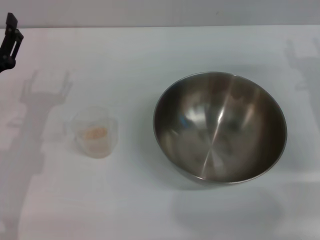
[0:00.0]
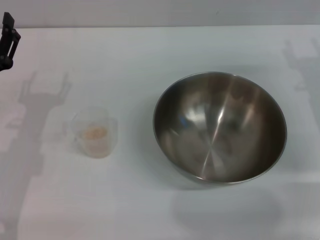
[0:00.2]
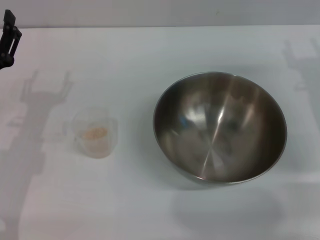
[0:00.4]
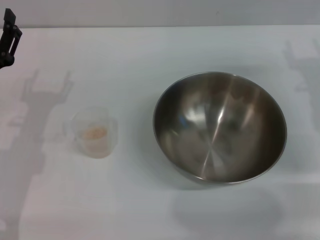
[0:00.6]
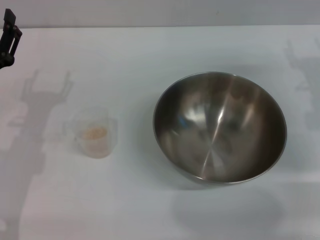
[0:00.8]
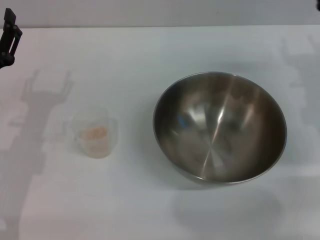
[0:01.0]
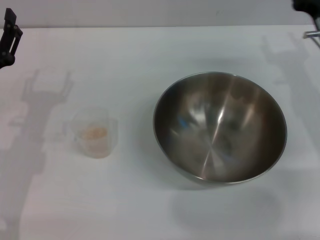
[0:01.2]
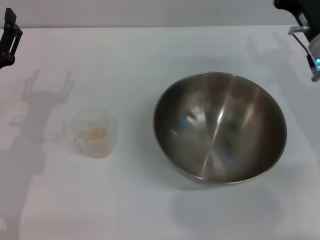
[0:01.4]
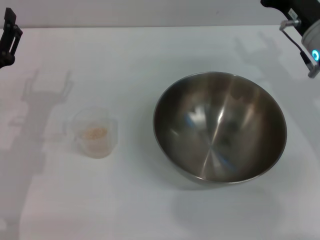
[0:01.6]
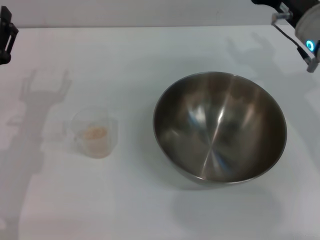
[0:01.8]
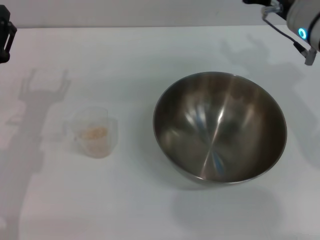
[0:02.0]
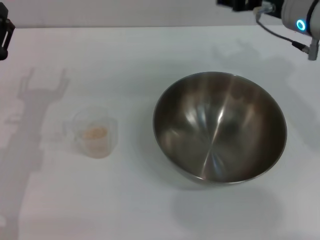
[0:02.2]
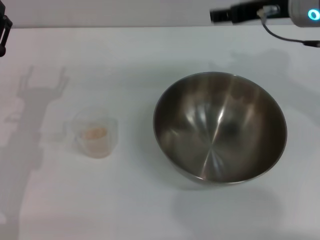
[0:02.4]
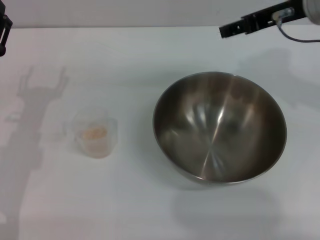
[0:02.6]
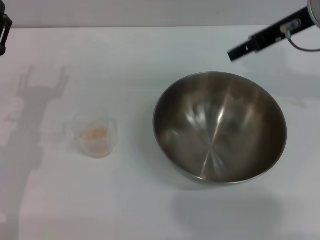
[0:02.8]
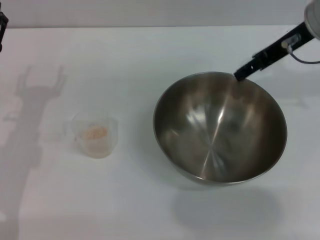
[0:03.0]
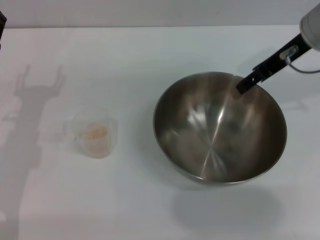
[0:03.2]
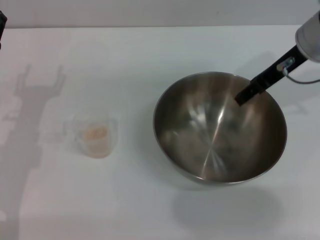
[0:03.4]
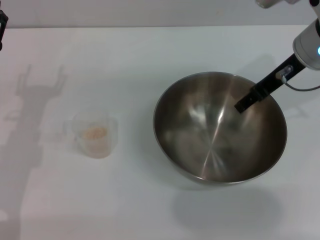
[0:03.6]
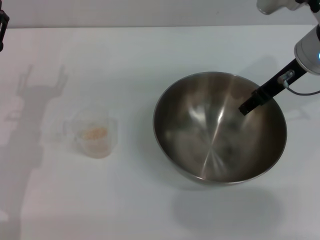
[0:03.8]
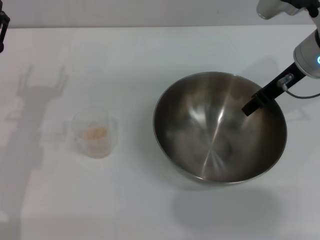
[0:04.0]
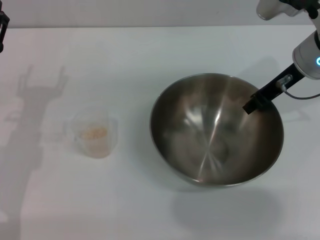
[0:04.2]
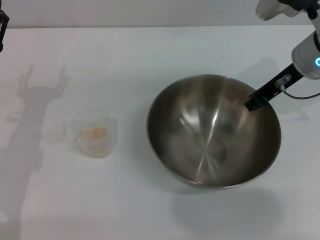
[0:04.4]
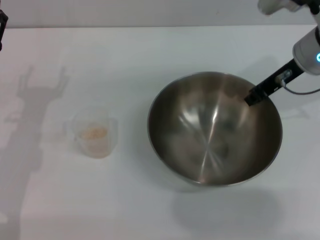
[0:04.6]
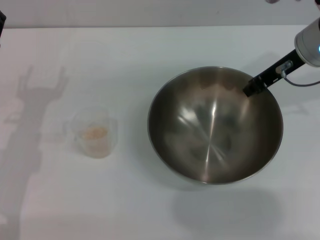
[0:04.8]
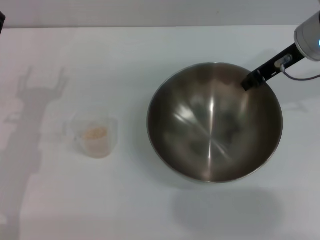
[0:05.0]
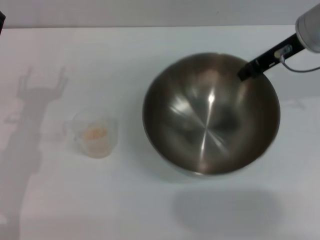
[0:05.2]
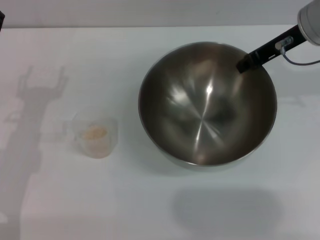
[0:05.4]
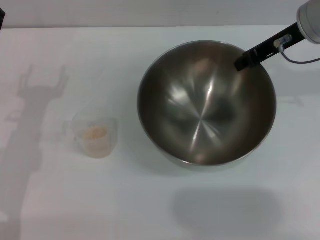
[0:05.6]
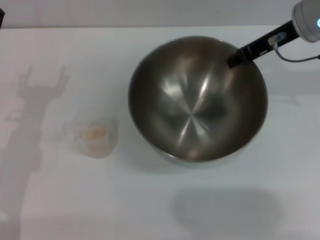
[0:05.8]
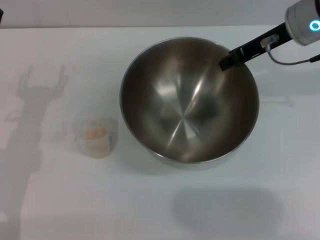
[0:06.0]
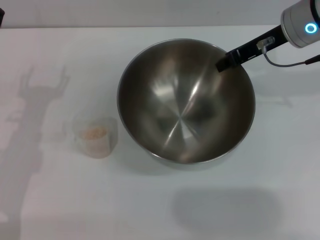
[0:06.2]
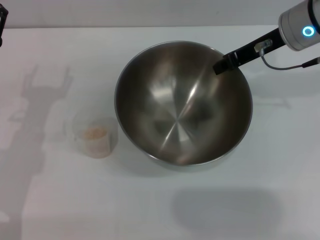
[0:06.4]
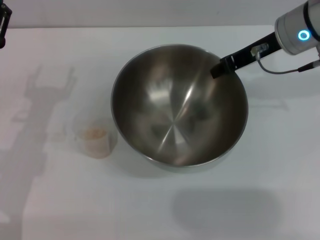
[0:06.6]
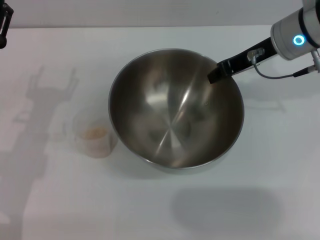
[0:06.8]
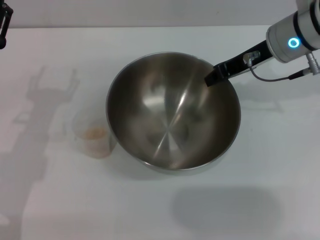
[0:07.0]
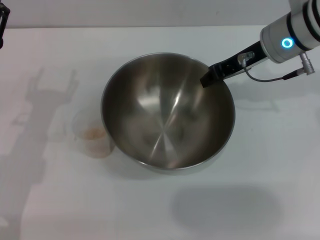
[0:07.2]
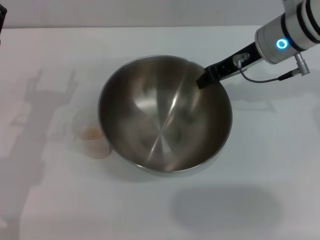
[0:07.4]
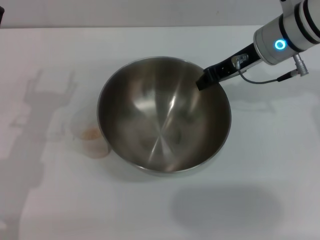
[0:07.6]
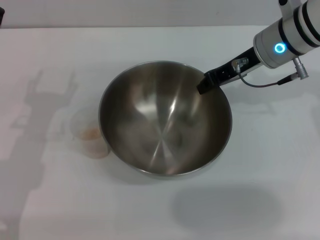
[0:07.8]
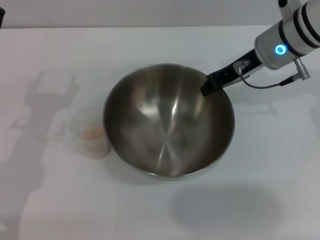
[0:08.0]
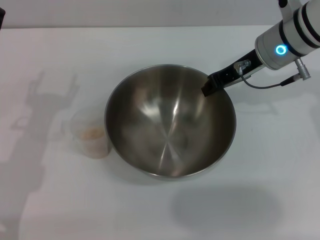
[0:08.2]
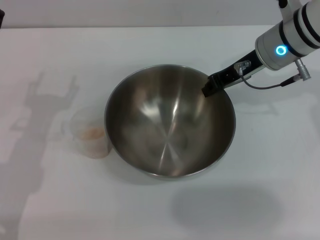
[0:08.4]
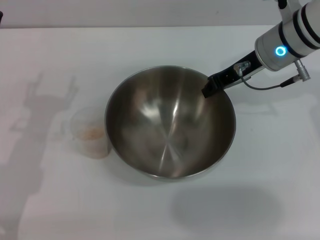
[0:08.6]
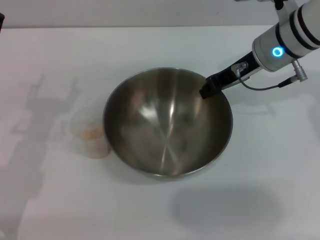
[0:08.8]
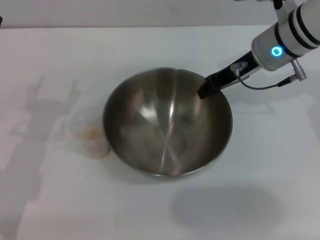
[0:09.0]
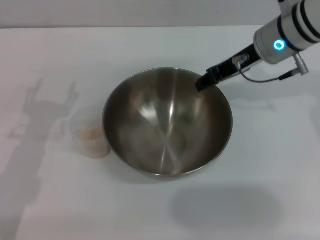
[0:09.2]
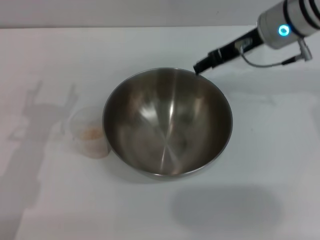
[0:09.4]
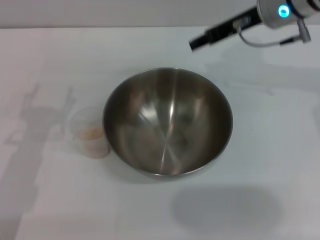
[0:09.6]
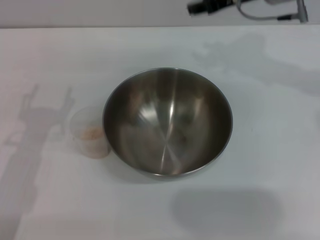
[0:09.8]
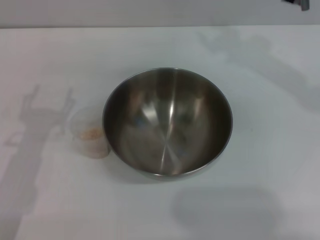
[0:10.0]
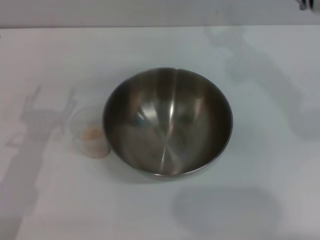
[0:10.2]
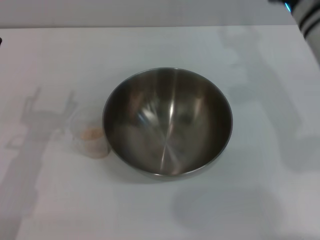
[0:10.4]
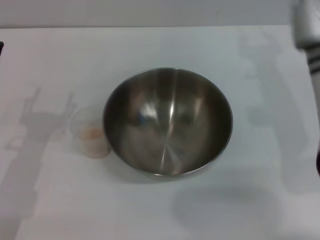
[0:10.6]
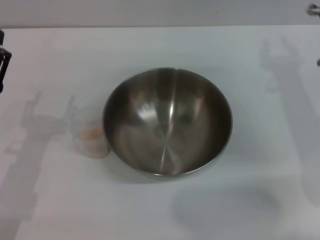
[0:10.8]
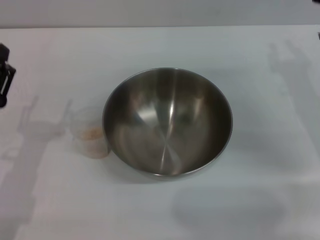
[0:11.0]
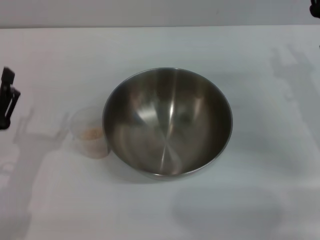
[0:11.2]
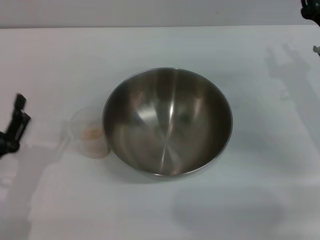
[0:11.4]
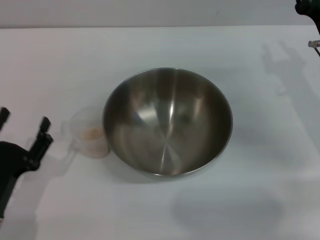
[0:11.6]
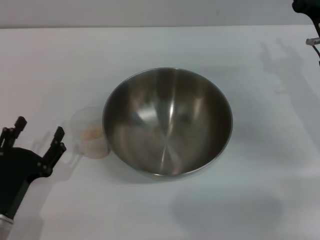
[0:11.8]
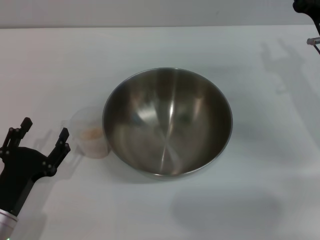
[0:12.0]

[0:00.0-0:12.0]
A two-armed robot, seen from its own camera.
Task of the whole recording: Place the bowl in the middle of the table with one hand and pour the rice from the grain cup into it with the other hand.
Step, 0:00.0 to 0:04.8: Pick up the bowl with the right gripper.
Step, 0:05.2 to 0:09.4: Place the bowl in the center of view with the right gripper.
0:00.0 to 0:01.6: The right gripper travels to the left by some 5 cm.
0:01.6 to 0:03.0: The right gripper goes approximately 10 cm upward.
0:03.0 to 0:04.4: The right gripper heads downward, covering some 5 cm, and closes.
0:04.4 to 0:06.0: The right gripper closes.
0:07.6 to 0:09.0: The grippers make only small movements.
0:09.0 to 0:10.4: The right gripper ends up some 5 cm from where it was, and opens its fingers.
0:10.4 to 0:12.0: The right gripper travels downward and to the right by approximately 15 cm; the left gripper goes about 10 cm downward and backward.

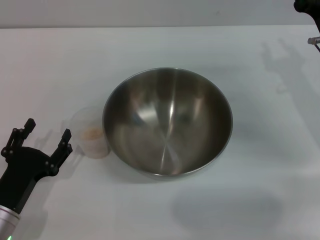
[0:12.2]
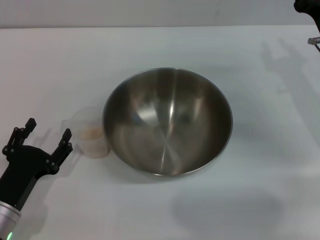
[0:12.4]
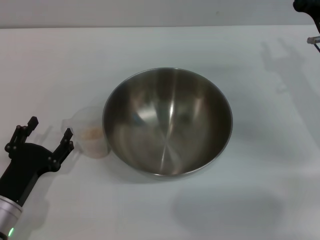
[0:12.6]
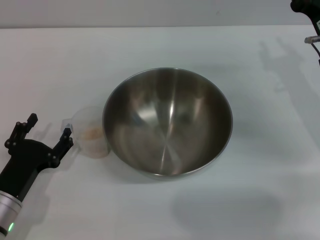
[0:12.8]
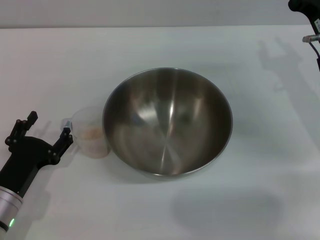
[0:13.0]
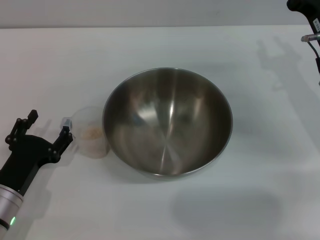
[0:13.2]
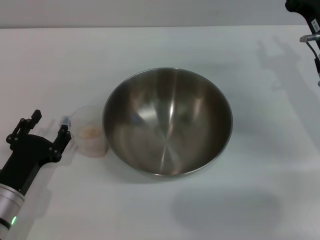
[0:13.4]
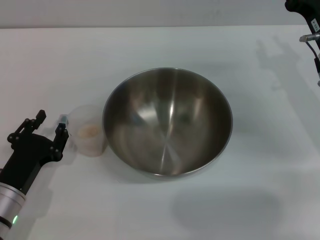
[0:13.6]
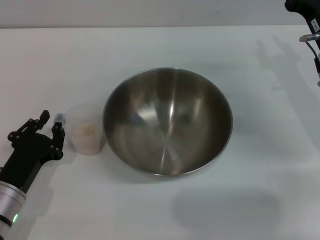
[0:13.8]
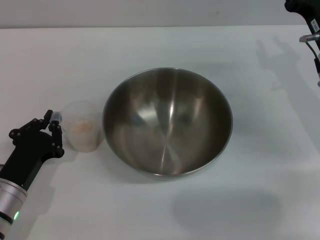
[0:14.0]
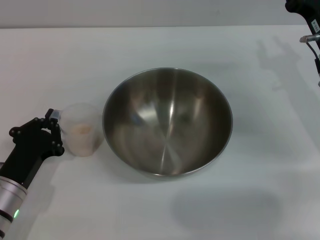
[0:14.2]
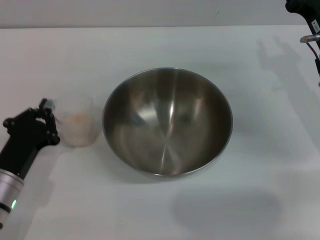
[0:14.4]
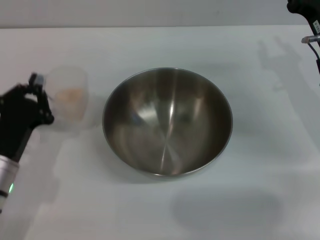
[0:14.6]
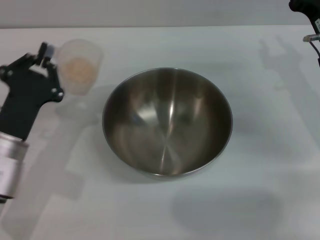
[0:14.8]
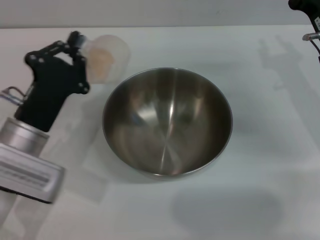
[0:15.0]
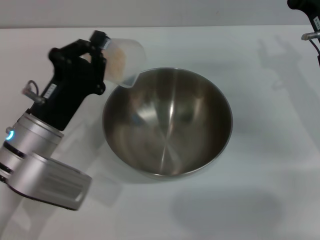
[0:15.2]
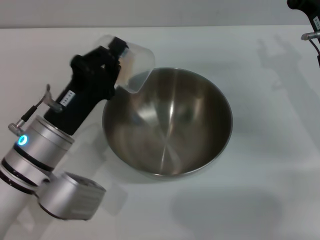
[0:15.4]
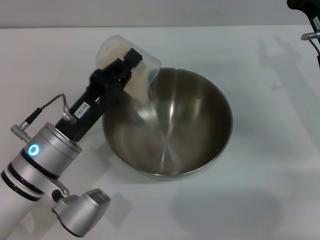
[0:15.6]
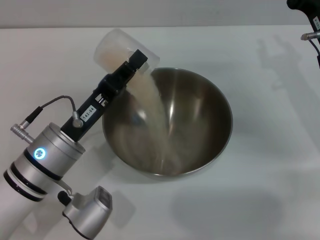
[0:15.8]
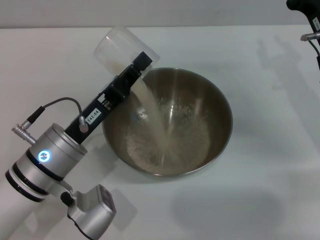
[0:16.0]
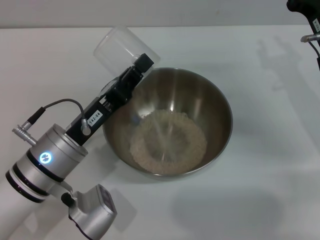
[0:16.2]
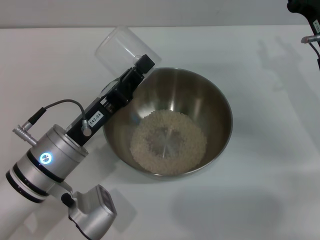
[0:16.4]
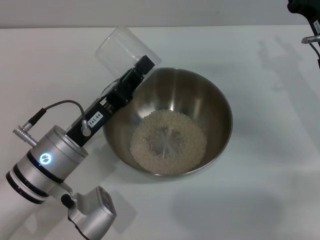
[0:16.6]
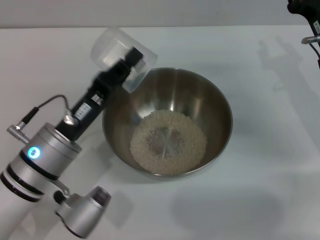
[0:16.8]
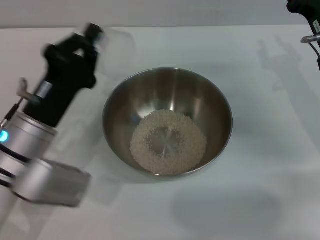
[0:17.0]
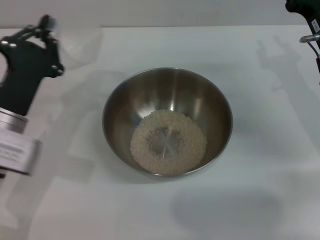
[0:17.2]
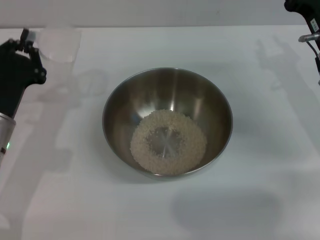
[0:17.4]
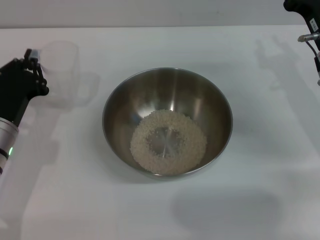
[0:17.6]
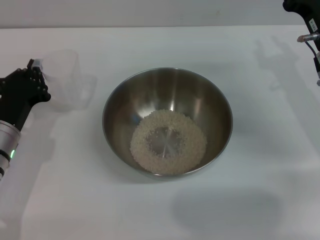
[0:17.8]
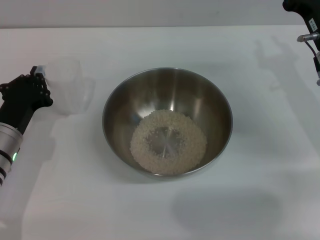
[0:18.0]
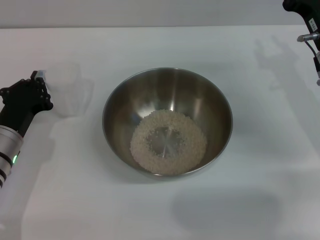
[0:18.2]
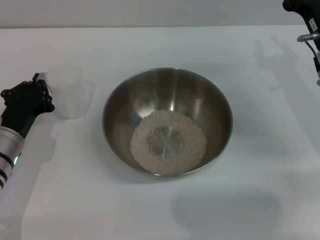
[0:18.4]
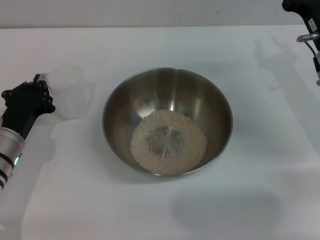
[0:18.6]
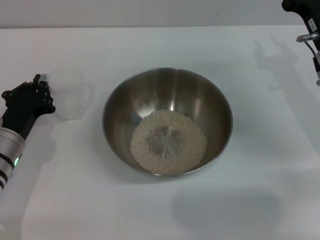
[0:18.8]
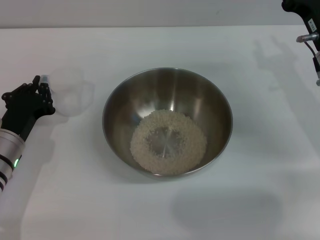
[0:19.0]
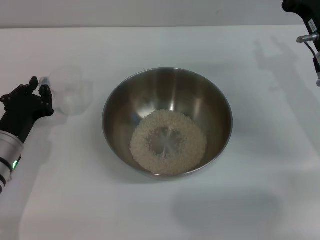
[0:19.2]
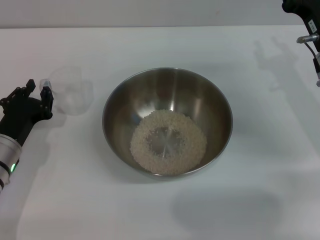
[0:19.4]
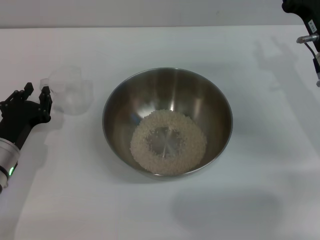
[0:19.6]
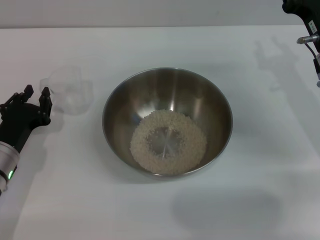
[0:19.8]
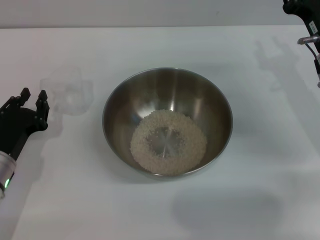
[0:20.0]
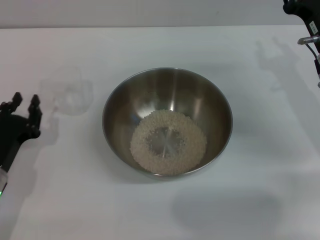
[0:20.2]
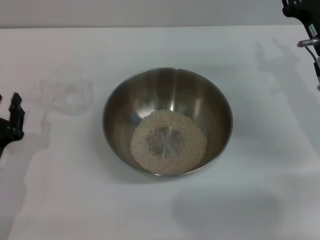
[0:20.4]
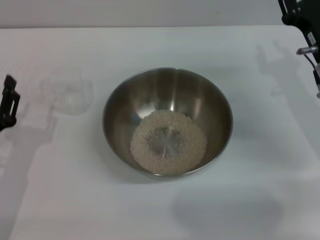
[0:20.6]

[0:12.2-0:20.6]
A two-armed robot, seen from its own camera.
Task of the whole recording: Place the bowl in the middle of the table with one hand and pour the rice from the grain cup into it with the other hand.
Step, 0:12.2 to 0:14.4: Pick up the cup with rice in it with the left gripper.
Step, 0:14.6 to 0:16.8: Pour the rice from the cup into the bowl with the left gripper.
Step, 0:17.0 to 0:19.8: Place the cup on the table with the left gripper.
0:12.2 to 0:13.6: There are only small adjustments of the grippers.
0:13.6 to 0:15.0: The left gripper heads upward and forward, covering some 10 cm, and closes up.
0:16.4 to 0:17.8: The left gripper is displaced to the left by approximately 10 cm.
0:17.8 to 0:19.2: The grippers stay close to where they were, moving slightly.
0:19.2 to 0:20.6: The left gripper goes about 5 cm backward.

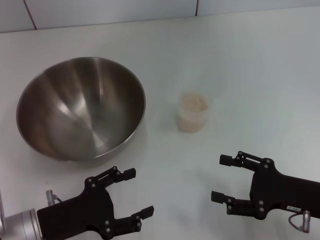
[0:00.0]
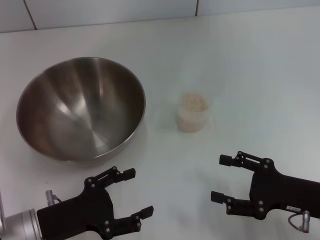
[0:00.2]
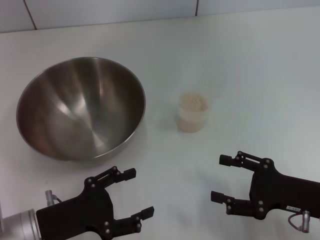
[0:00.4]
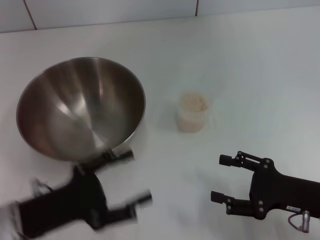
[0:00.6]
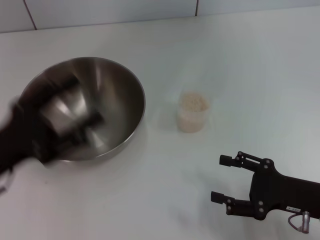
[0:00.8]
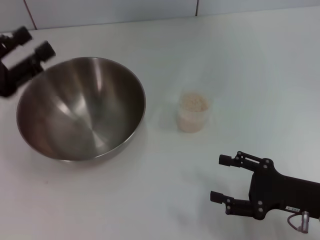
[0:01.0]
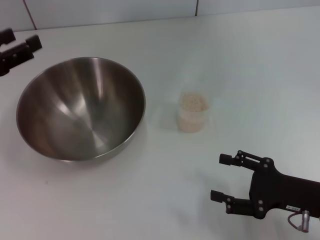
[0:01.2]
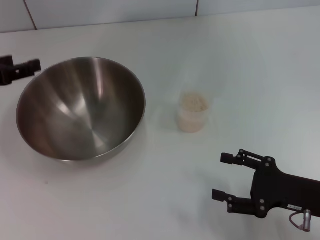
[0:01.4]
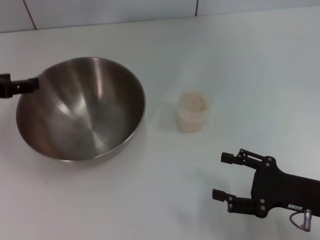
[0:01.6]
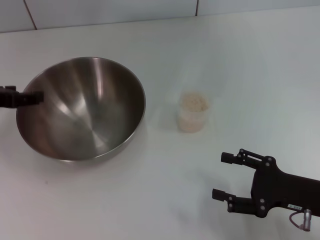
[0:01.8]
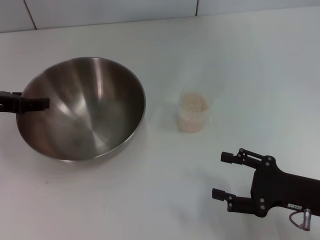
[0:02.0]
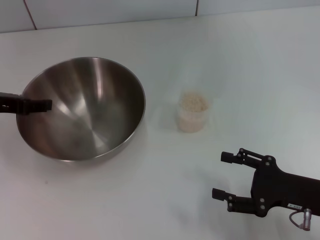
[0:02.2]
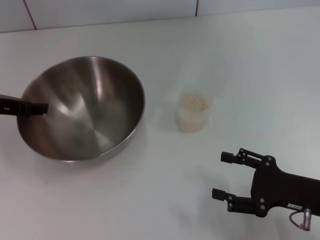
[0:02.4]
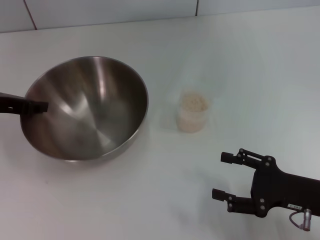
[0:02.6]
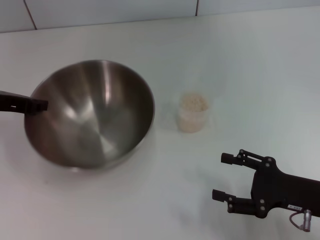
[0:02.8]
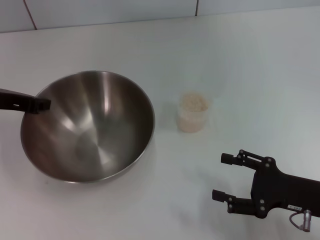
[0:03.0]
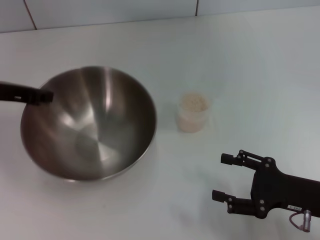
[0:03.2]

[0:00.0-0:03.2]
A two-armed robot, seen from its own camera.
Task of the whole recording: Place the bowl in the middle of the table with one hand and pour the rice from the grain cup into it with the other hand.
Step, 0:00.0 to 0:02.8: Pick up the bowl with the left gripper.
0:00.0 to 0:01.6: The left gripper moves forward, upward and to the left, approximately 20 cm.
0:01.6 to 0:03.2: The left gripper closes up.
